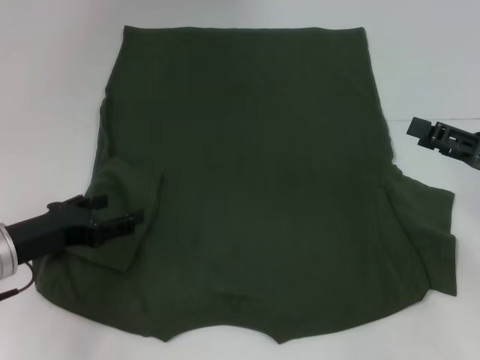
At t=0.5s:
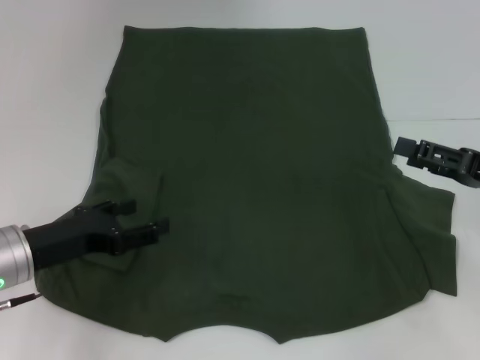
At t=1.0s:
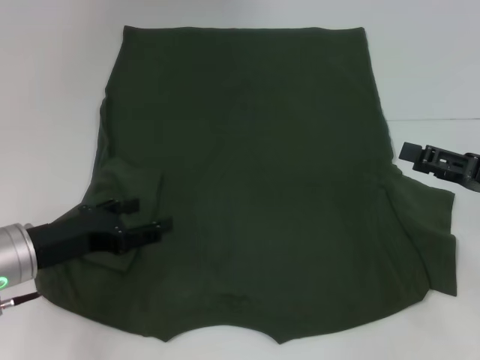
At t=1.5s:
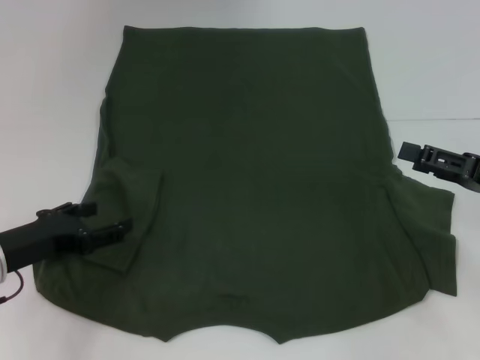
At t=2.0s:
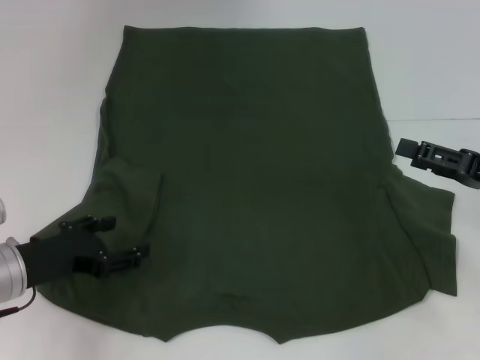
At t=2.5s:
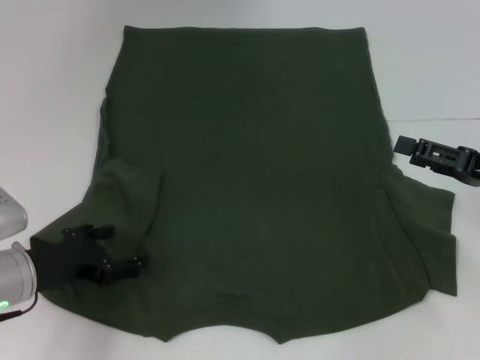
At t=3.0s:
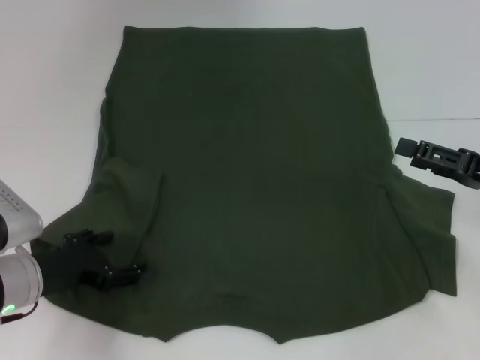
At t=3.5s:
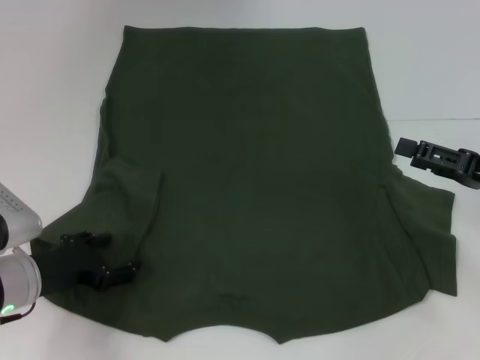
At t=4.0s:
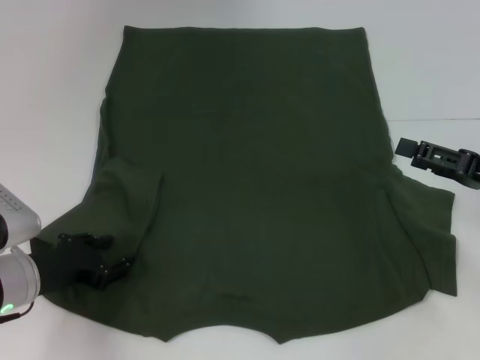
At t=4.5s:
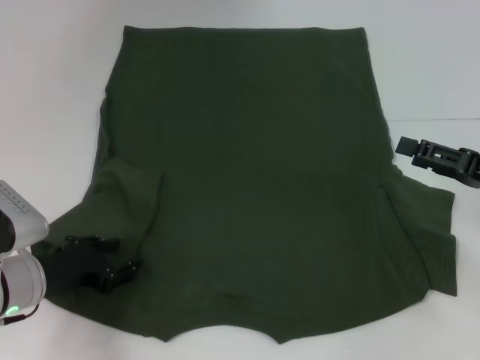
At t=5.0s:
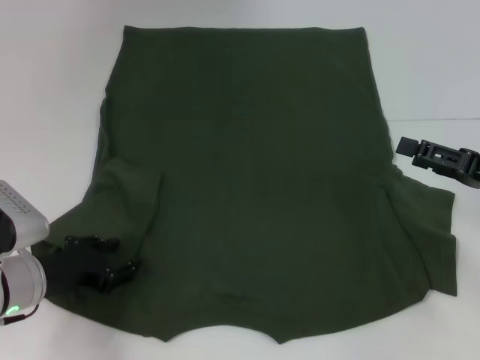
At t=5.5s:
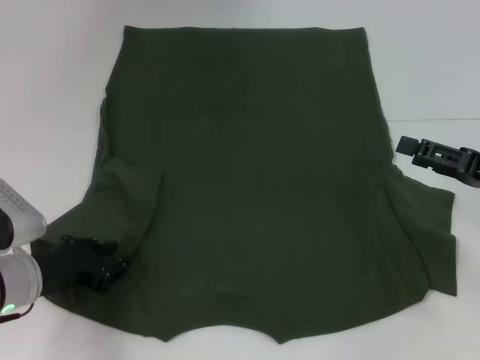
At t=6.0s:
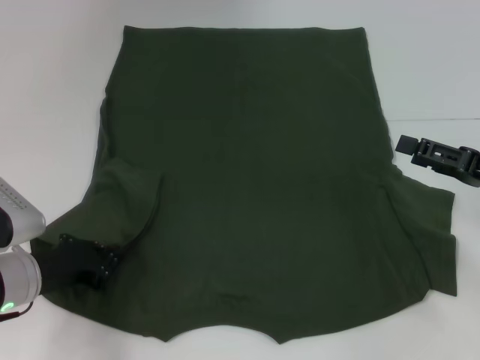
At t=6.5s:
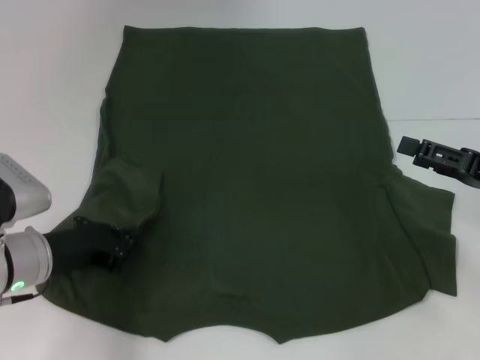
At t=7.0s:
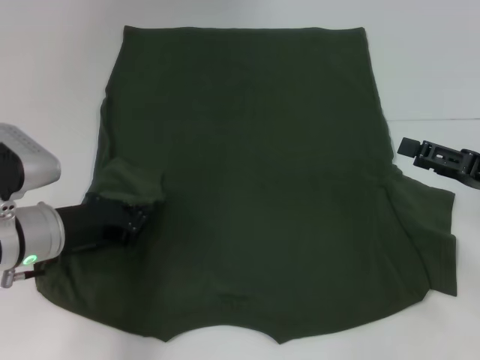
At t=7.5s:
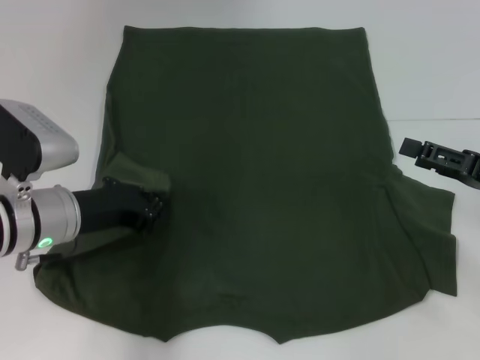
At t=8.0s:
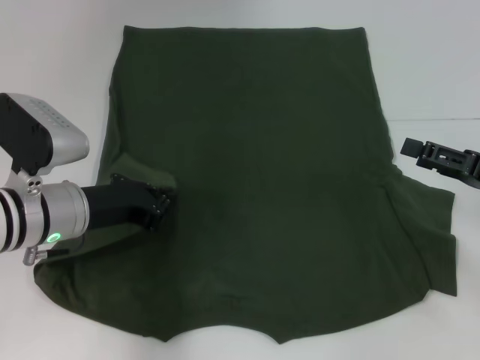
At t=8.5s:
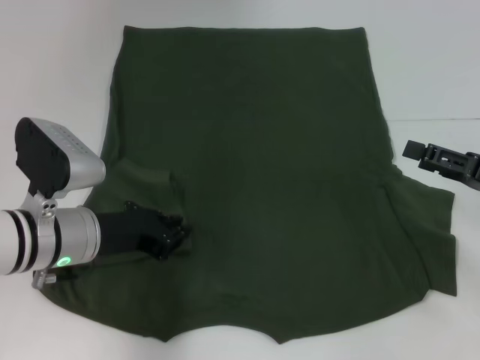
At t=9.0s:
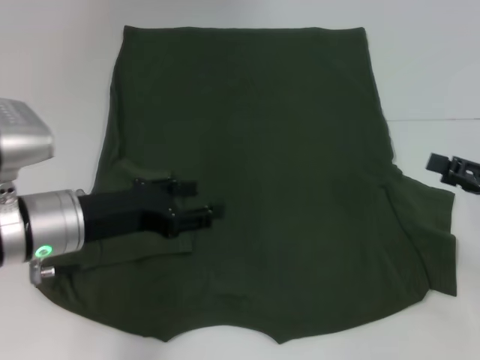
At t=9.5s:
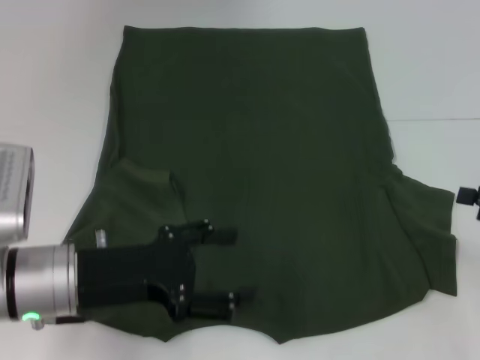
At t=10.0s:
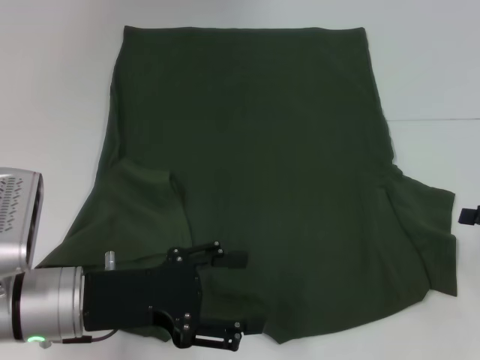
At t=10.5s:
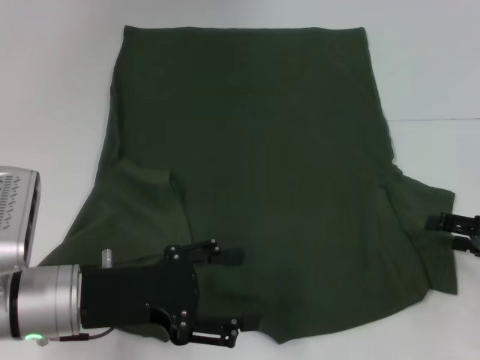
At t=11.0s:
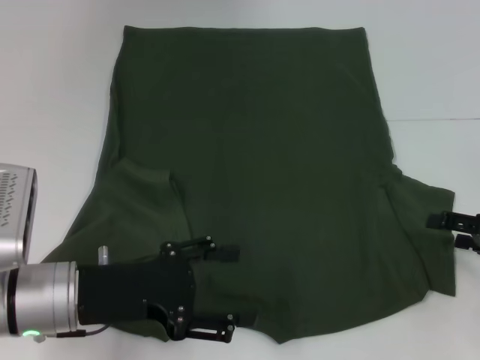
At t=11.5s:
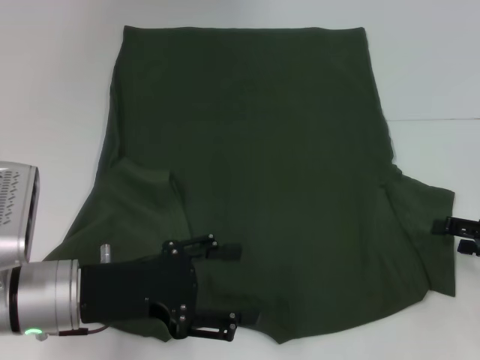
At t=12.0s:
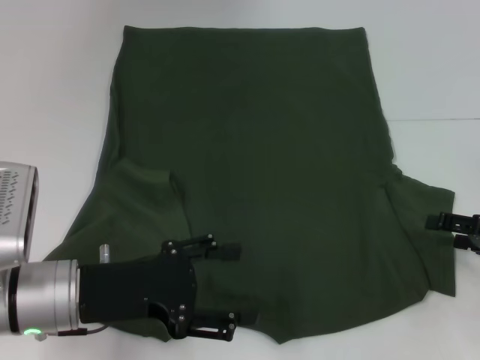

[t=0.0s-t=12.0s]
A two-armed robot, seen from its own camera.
t=0.0s to t=2.0s: The grippers move only a little.
t=2.0s to t=4.0s: The left gripper closes.
t=4.0s to t=6.0s: The left gripper closes up.
t=6.0s to t=8.0s: The left gripper moves upward and to the right, about 10 cm.
t=8.0s to t=10.0s: The right gripper travels to the right by roughly 5 cm. The left gripper shifts about 10 cm backward, and opens.
t=10.0s to t=12.0s: The grippers make only small movements.

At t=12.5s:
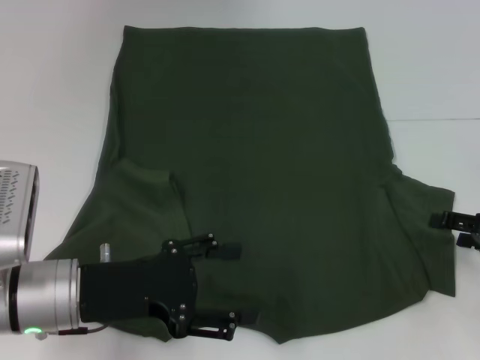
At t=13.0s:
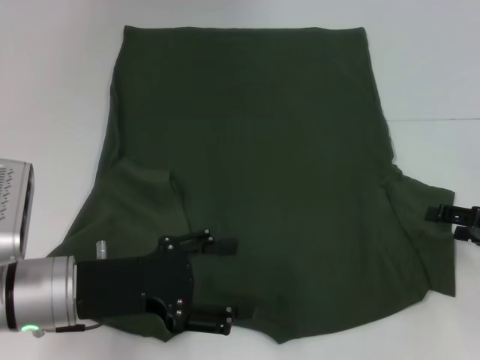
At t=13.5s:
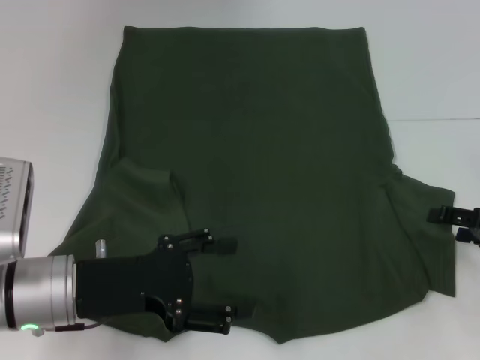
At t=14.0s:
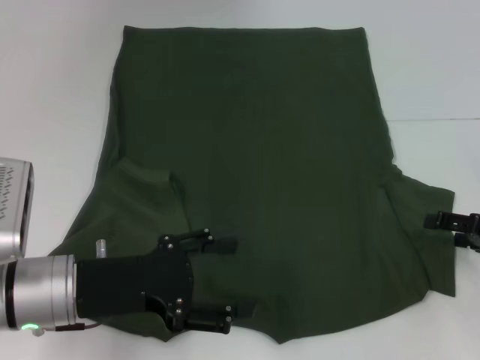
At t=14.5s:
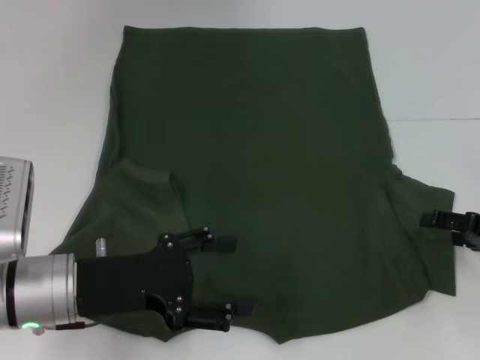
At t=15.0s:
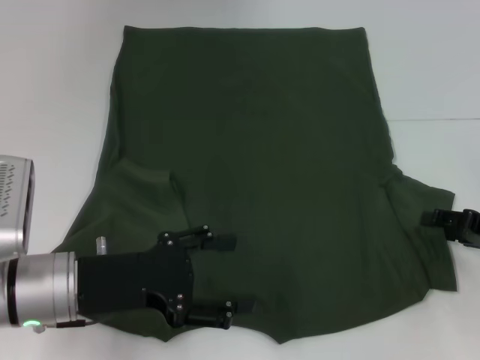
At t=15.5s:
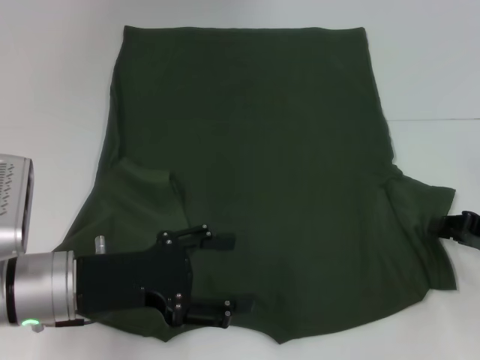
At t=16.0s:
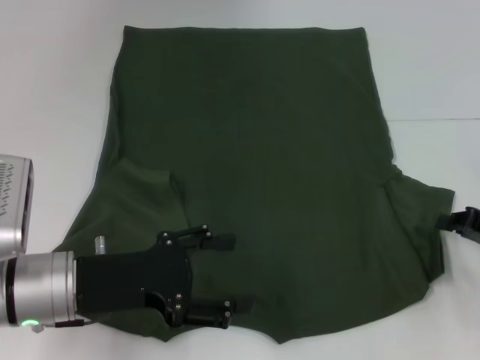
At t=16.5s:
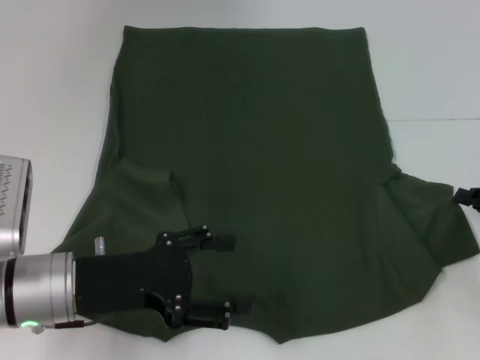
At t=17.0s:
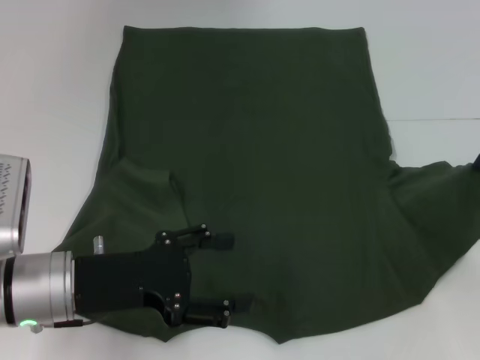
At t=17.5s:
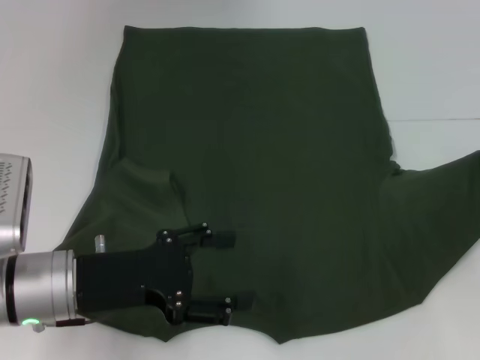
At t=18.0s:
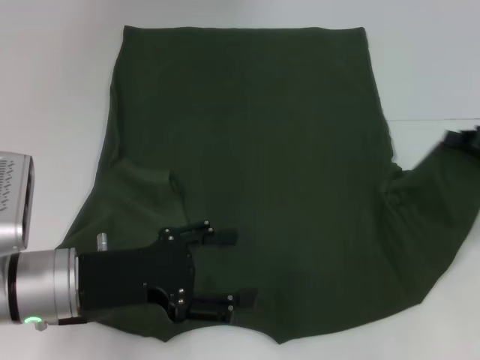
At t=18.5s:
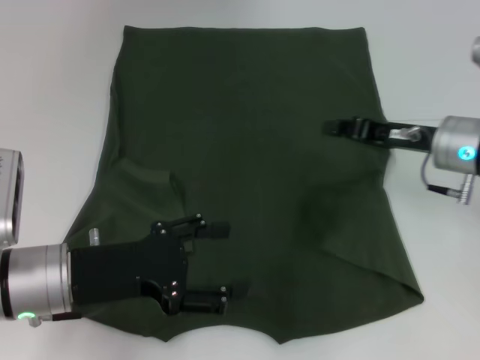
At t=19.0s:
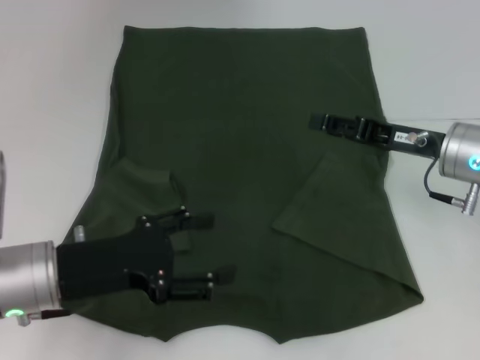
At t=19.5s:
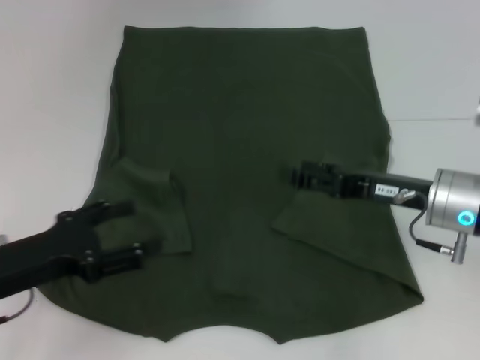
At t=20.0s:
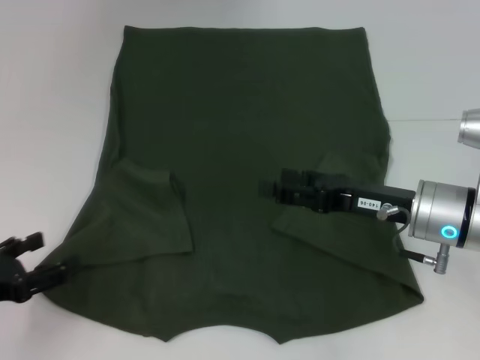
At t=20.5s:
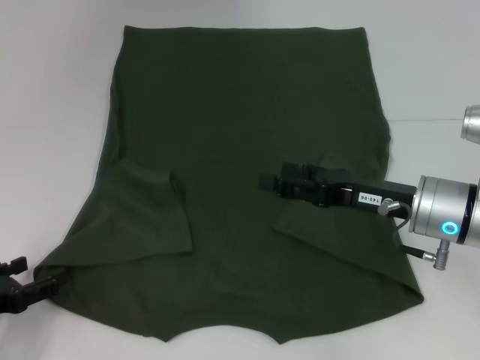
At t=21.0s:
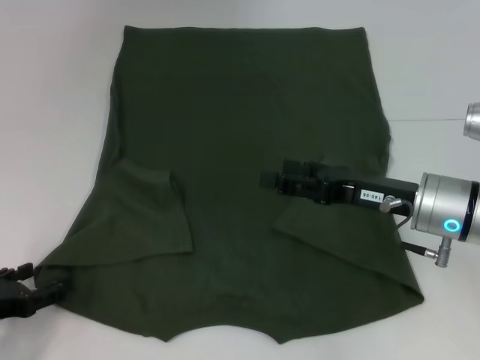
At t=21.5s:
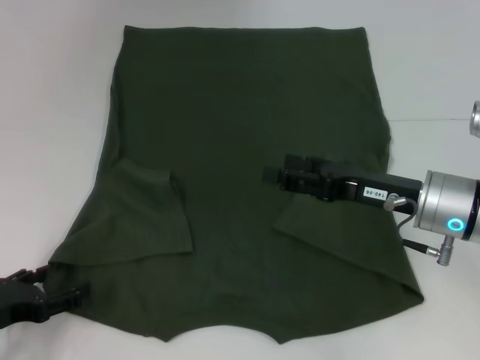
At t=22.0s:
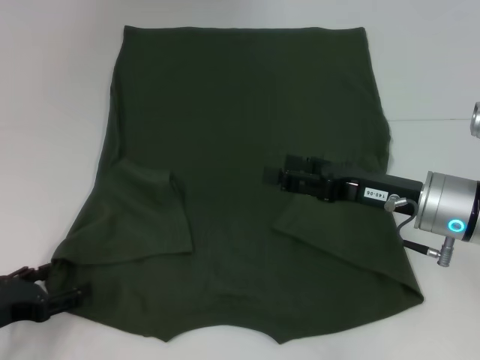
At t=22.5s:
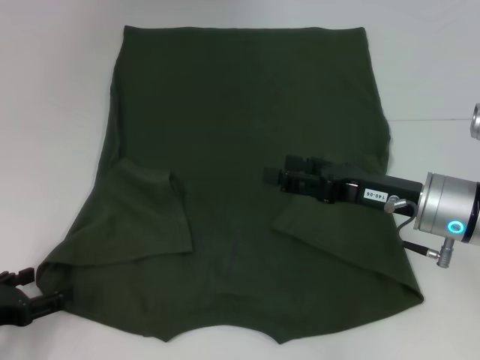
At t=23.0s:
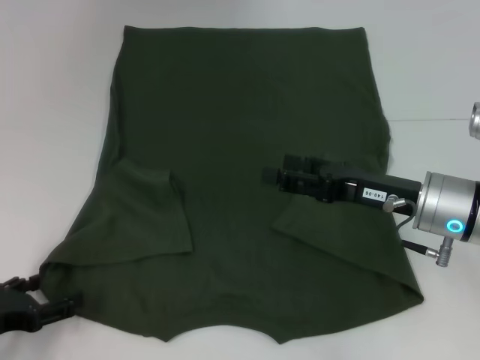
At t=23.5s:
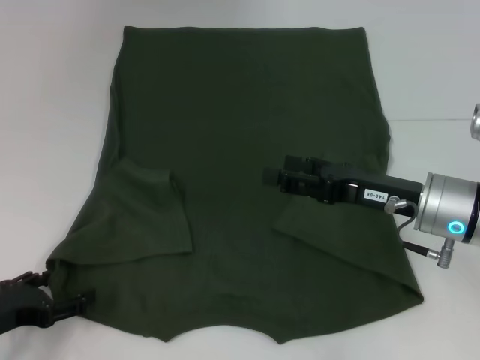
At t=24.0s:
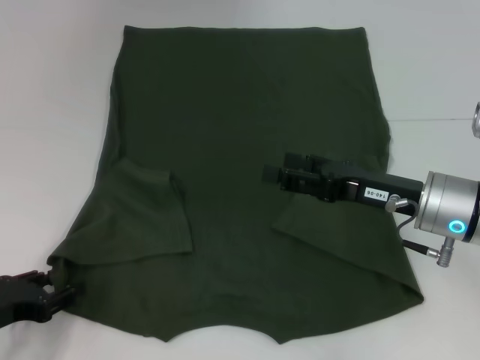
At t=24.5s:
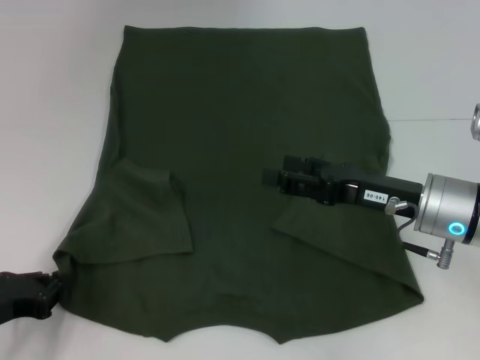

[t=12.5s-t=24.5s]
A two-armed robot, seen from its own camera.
Step, t=12.5s to t=18.0s: Fold the bottom right sleeve with your right hand.
t=12.5s to t=14.5s: The two grippers keep their place.
t=14.5s to t=16.5s: The right gripper closes its fingers.
t=16.5s to t=18.5s: The right gripper travels to the left, forward and upward by roughly 15 cm.
t=18.5s to t=20.5s: The right gripper moves backward, about 5 cm, and opens up; the left gripper heads to the left and downward, covering approximately 15 cm.
t=20.5s to t=22.5s: The grippers move only a little.
t=22.5s to t=24.5s: The left gripper closes.

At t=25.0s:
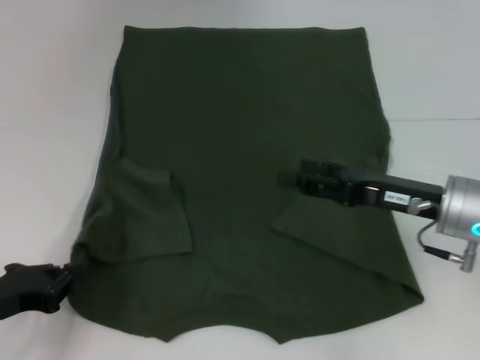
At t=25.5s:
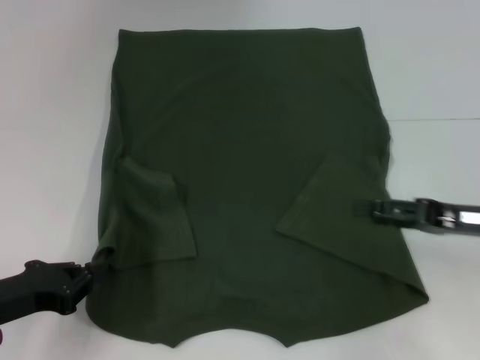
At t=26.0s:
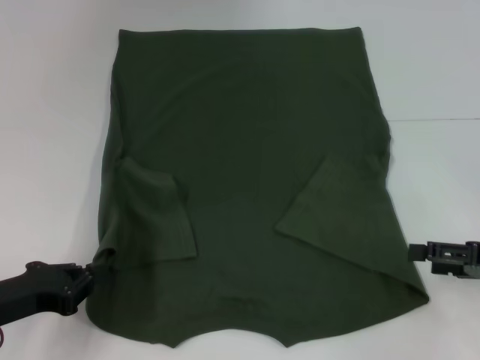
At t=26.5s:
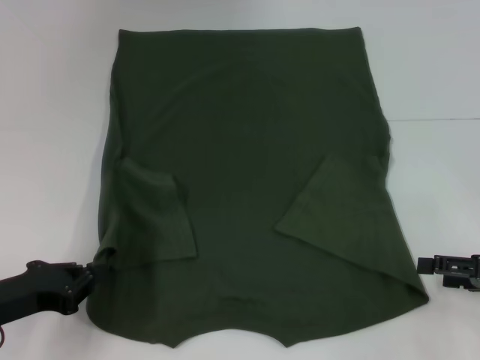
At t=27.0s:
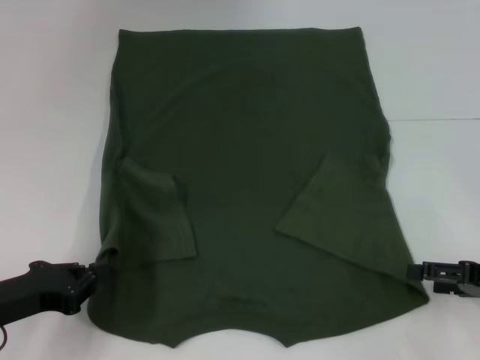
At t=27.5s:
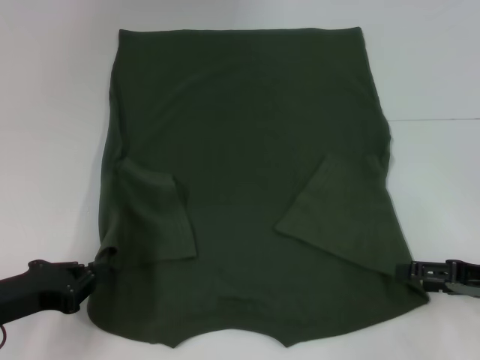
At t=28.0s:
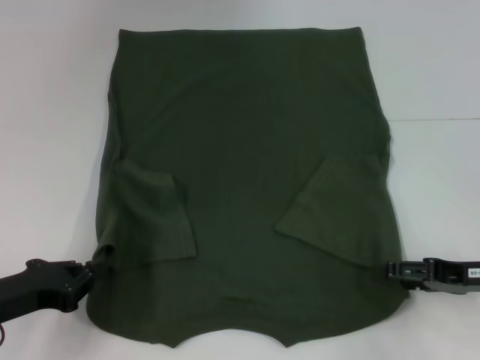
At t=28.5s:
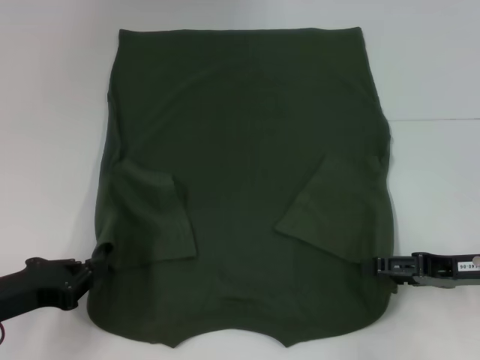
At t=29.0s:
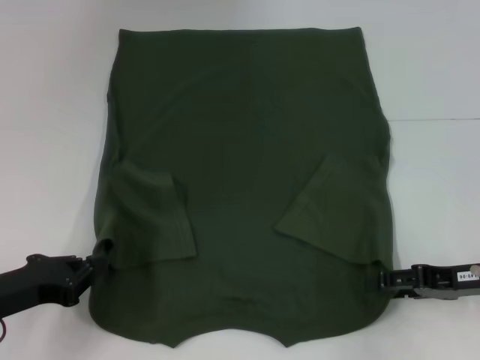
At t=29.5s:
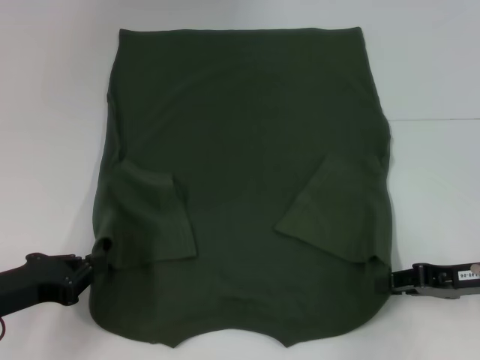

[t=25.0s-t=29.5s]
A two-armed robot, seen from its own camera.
t=25.0s to t=27.0s: The right gripper travels to the right and backward by about 15 cm.
t=27.0s to t=29.5s: The right gripper closes its fingers.
